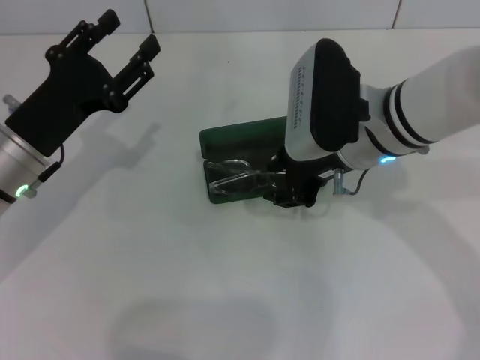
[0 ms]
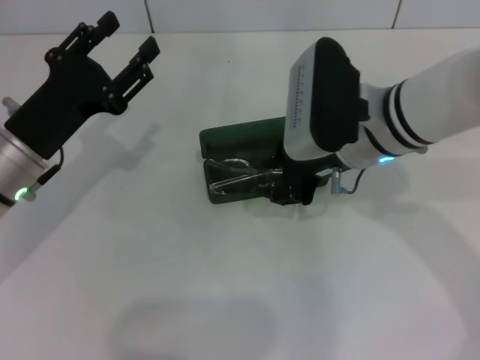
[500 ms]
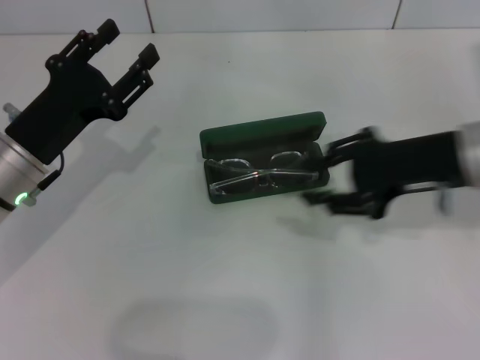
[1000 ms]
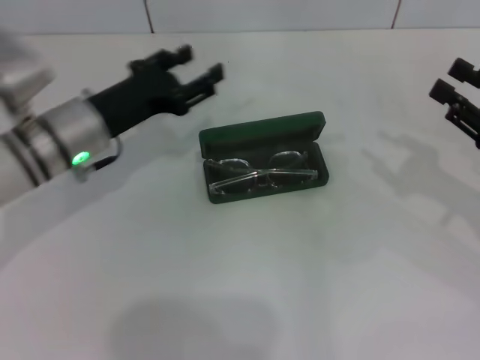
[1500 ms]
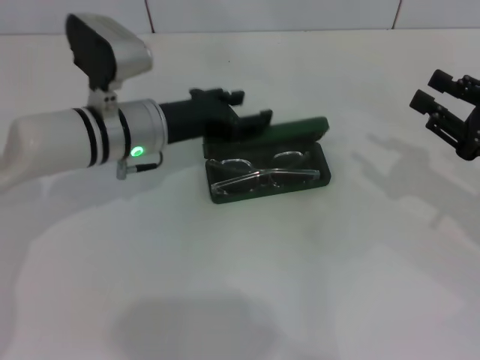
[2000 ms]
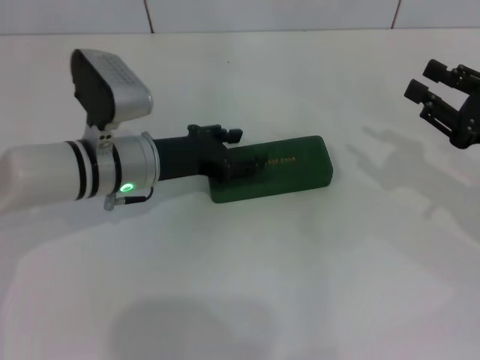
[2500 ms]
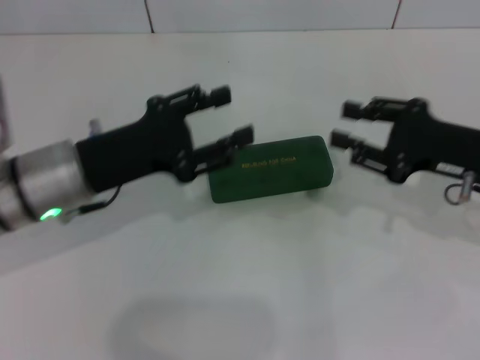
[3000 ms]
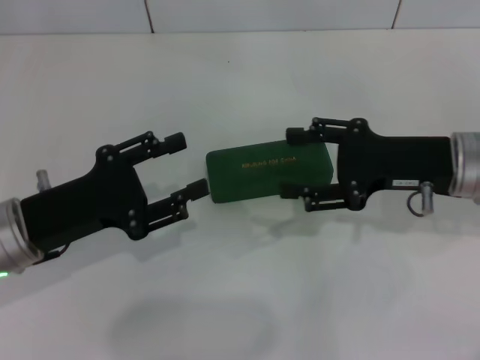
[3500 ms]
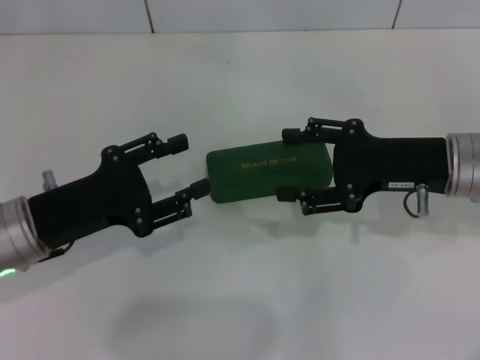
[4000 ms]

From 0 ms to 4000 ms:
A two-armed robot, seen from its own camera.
Step, from 0 ms to 2500 ms: Close the glasses case with your left hand.
From 0 ms to 2000 ms: The left gripper travels to the right and forward by about 10 cm; the right gripper shifts approximately 20 cm to the right.
From 2000 ms to 4000 ms: The left gripper moves backward and to the left, some 15 cm, while the right gripper goes about 10 cm to the left, and opens.
